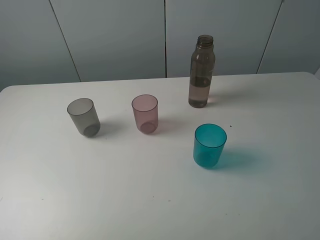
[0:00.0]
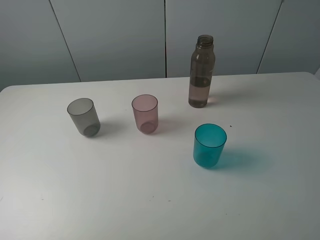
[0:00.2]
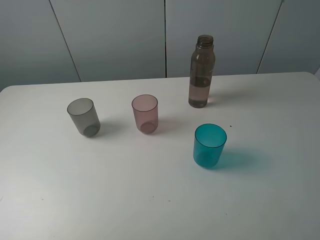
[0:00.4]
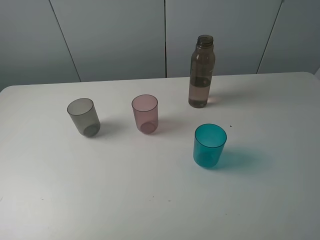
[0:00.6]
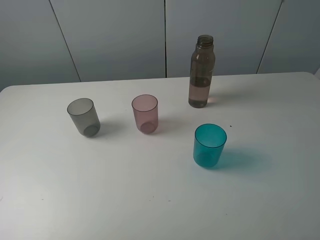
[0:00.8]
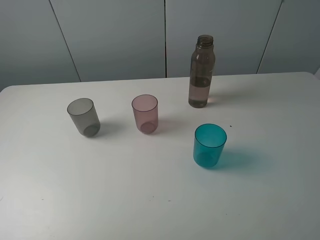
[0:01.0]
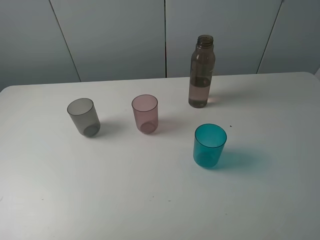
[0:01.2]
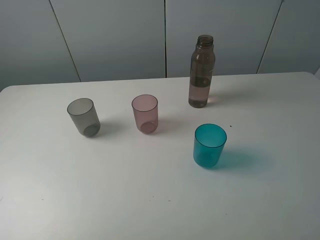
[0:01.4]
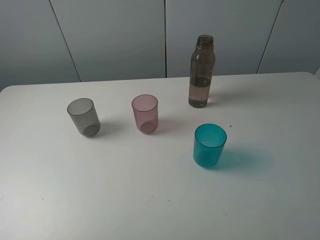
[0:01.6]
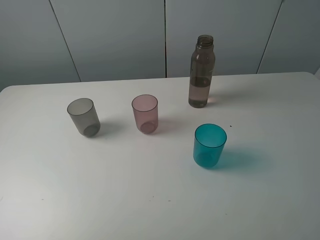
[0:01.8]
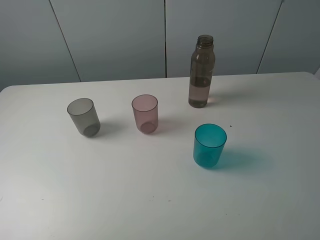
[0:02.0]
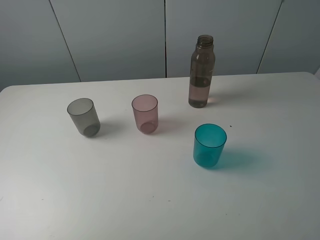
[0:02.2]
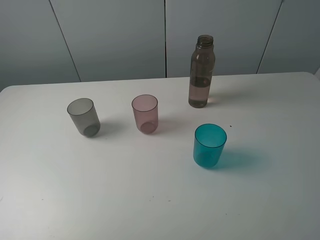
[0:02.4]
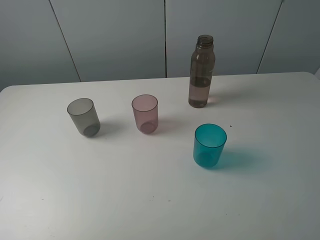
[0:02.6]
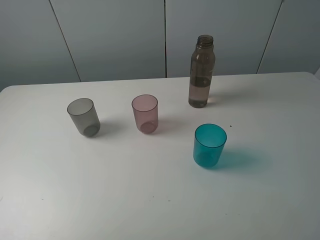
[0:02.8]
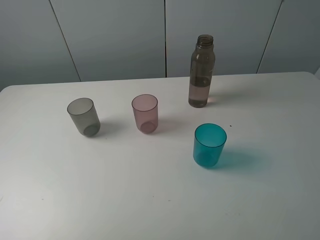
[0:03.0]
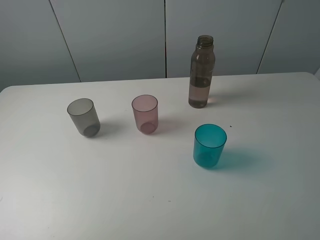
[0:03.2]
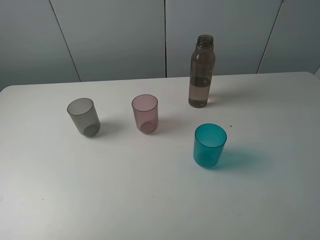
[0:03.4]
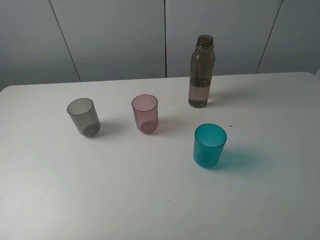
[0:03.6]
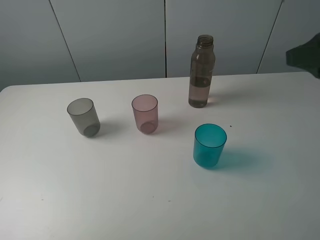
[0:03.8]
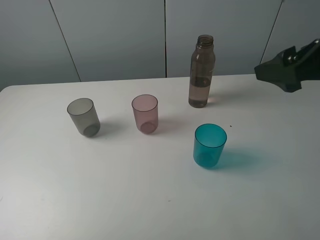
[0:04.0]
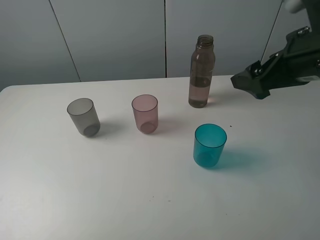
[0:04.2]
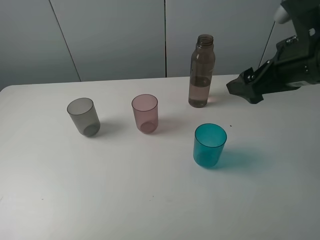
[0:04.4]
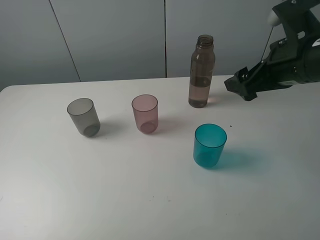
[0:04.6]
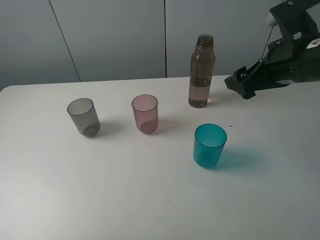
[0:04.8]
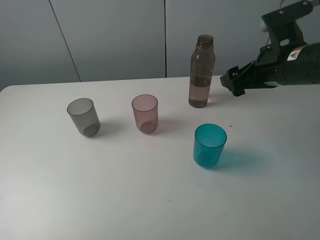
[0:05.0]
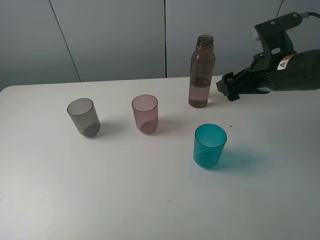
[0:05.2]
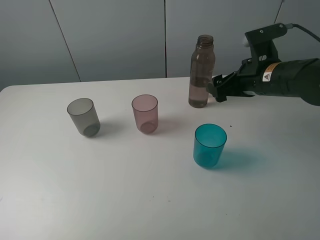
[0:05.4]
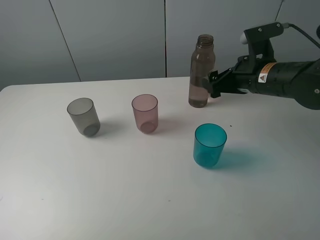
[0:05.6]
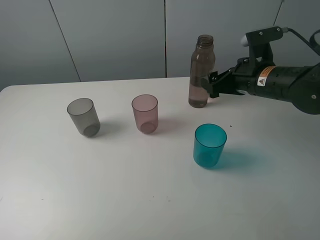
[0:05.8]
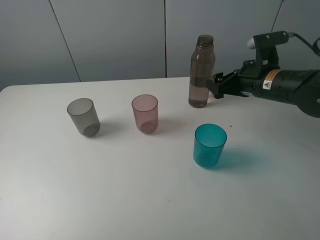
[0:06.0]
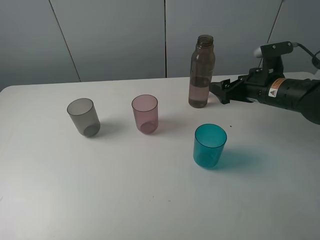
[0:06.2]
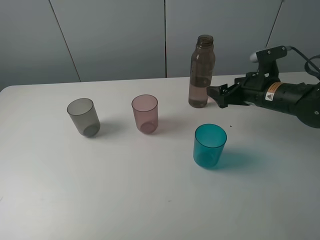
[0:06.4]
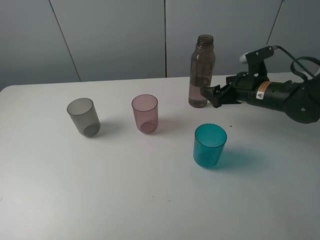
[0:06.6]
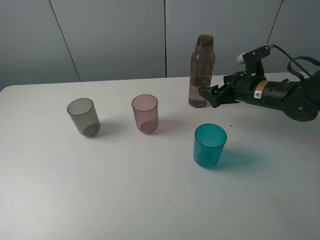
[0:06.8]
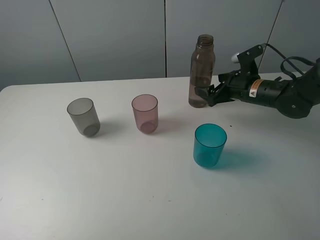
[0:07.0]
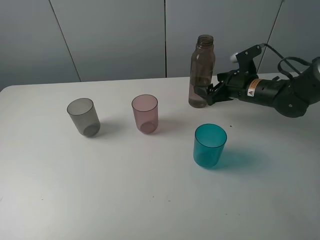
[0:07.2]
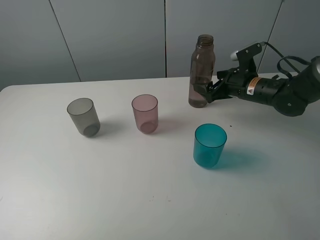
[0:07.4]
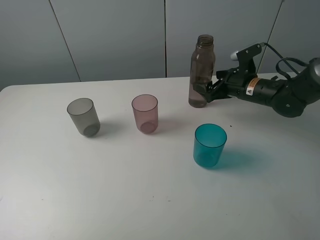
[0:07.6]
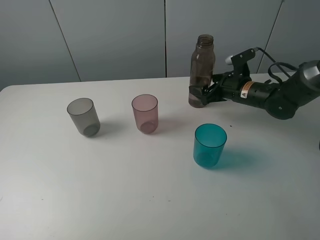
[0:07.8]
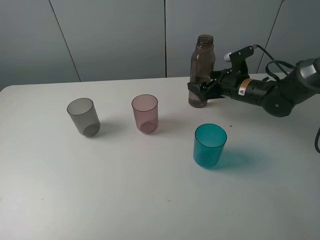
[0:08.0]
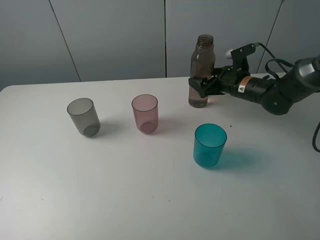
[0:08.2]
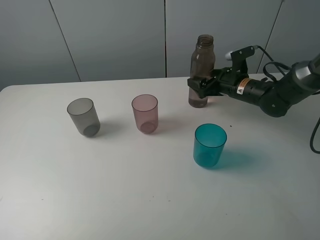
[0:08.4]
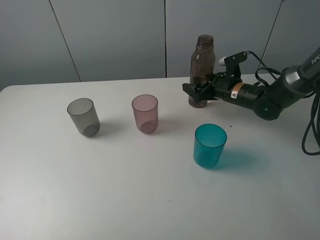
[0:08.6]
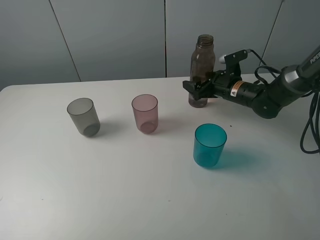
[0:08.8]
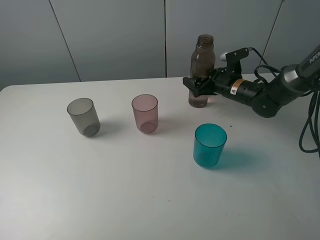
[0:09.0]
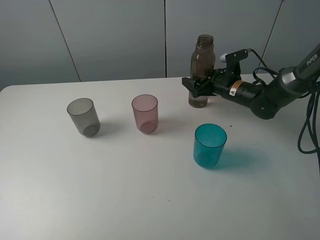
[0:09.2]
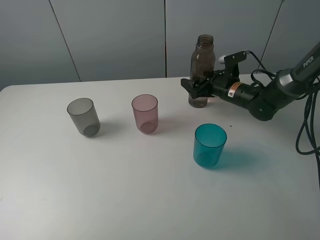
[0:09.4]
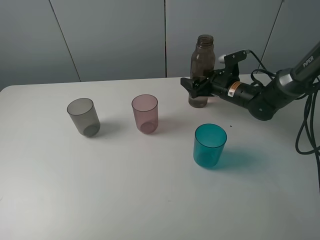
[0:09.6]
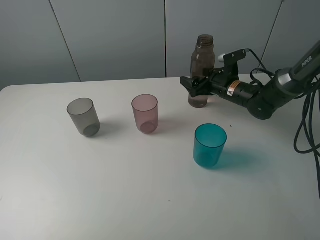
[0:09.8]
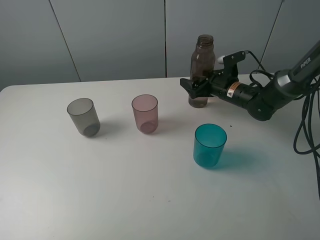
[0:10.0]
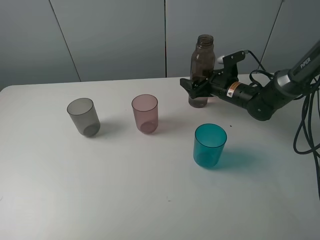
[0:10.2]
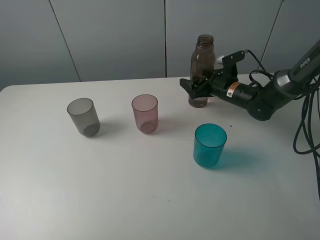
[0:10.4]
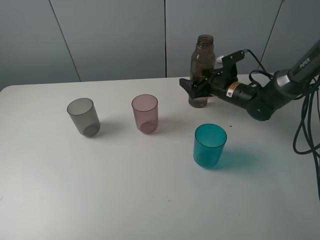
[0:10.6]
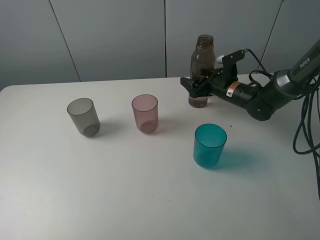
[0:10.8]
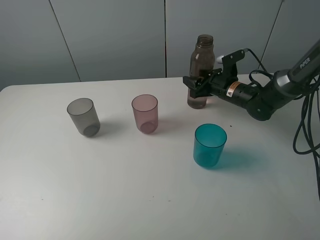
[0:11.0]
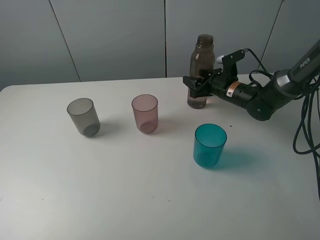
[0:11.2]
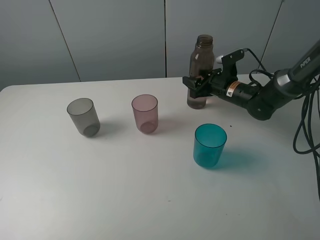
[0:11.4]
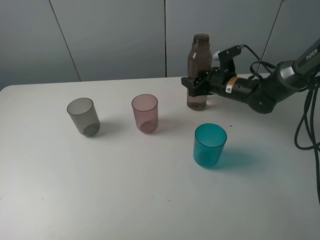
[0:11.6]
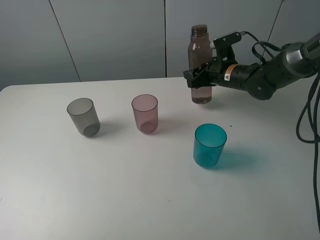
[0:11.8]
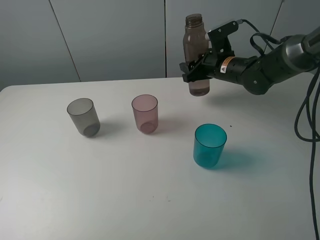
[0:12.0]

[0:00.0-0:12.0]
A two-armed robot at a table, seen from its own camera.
Task of the whole recording: pick up the bottle filled with water and pour water into the middle cup of the three cups.
Step, 0:00.0 to 0:11.2: Grasp the brown bottle with the right gripper.
0:00.0 to 0:01.6: Both grippers stay put.
0:03.0 to 0:04.4: The right gripper moves forward, about 25 cm.
0:04.4 to 0:06.0: The right gripper travels downward and forward by some 15 cm.
0:06.0 to 0:07.6: The right gripper travels forward and downward by roughly 10 cm.
0:07.6 to 0:09.0: There are only small adjustments of the grippers.
0:09.0 to 0:10.4: Both grippers stay about where they are.
0:10.4 to 0:12.0: The right gripper heads upward, covering roughly 5 cm, and closes its fingers.

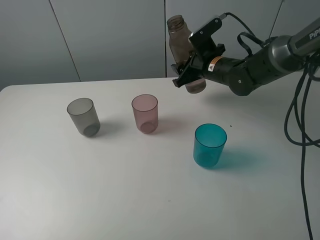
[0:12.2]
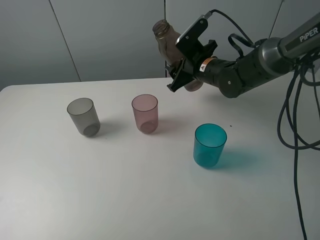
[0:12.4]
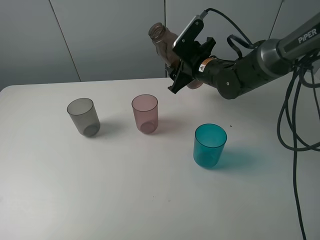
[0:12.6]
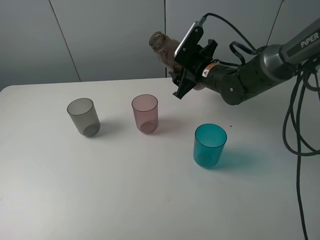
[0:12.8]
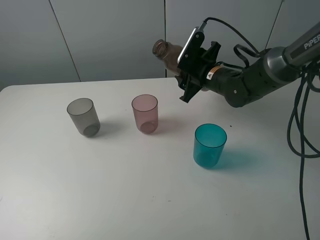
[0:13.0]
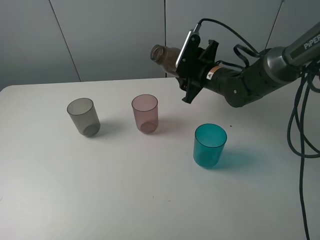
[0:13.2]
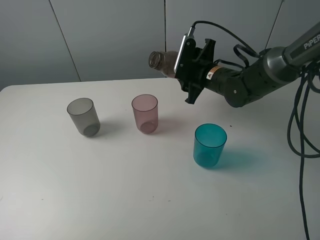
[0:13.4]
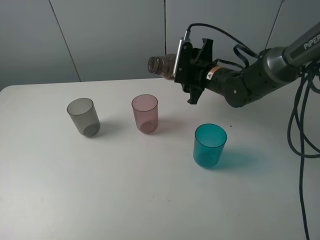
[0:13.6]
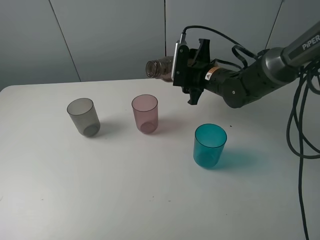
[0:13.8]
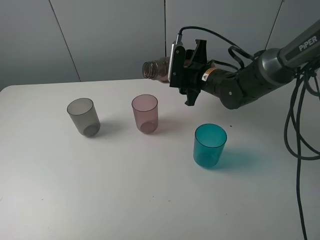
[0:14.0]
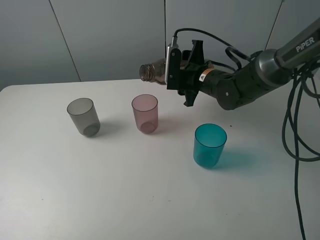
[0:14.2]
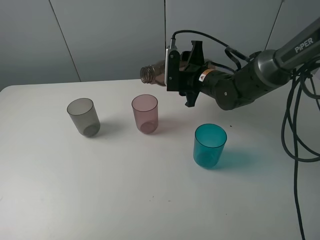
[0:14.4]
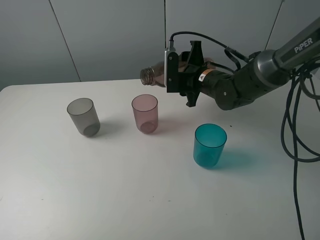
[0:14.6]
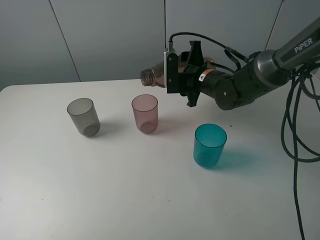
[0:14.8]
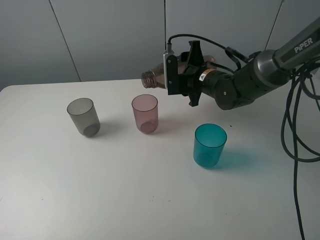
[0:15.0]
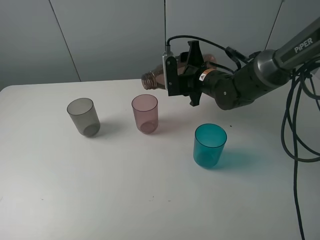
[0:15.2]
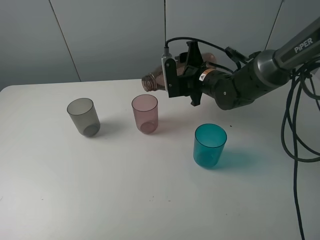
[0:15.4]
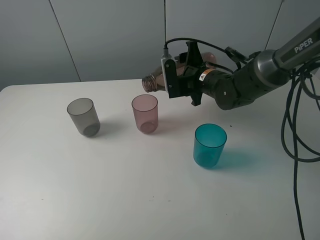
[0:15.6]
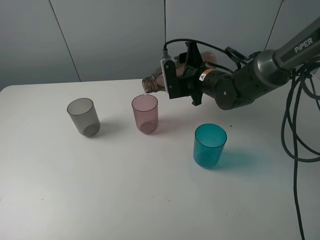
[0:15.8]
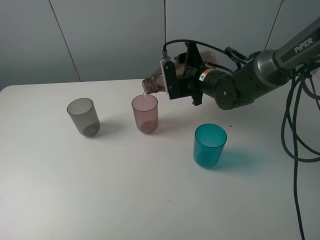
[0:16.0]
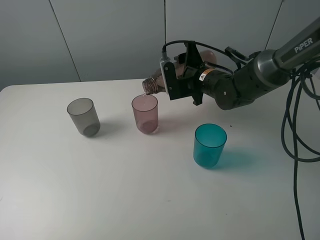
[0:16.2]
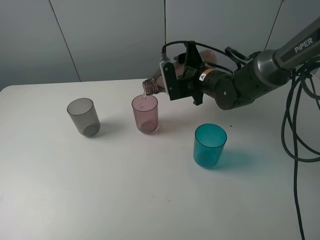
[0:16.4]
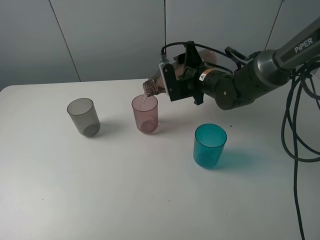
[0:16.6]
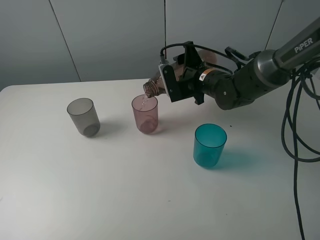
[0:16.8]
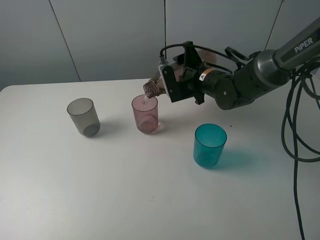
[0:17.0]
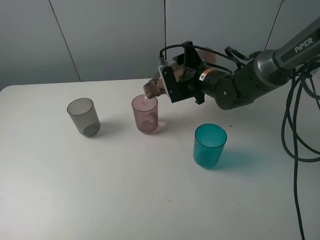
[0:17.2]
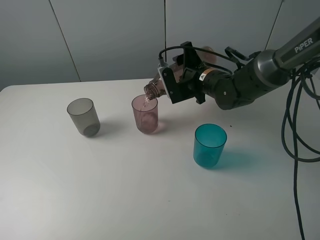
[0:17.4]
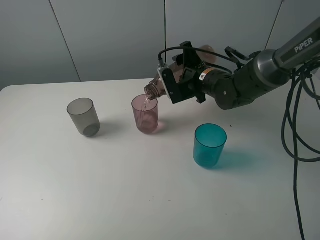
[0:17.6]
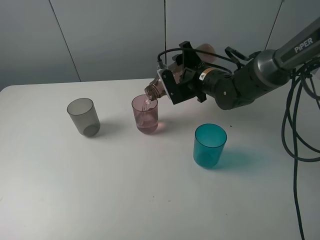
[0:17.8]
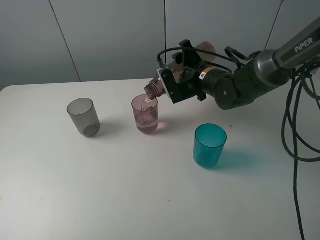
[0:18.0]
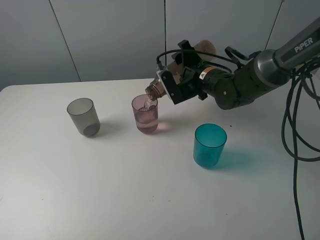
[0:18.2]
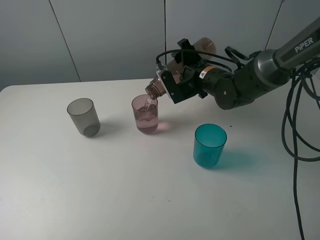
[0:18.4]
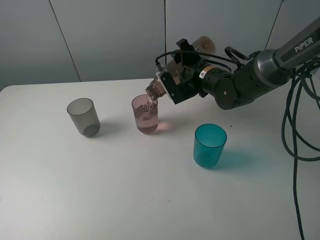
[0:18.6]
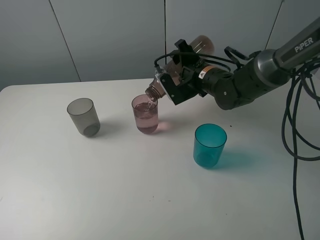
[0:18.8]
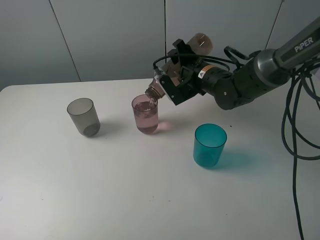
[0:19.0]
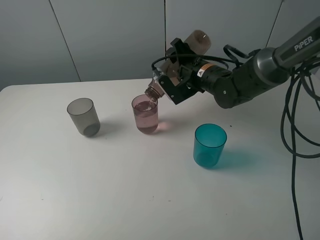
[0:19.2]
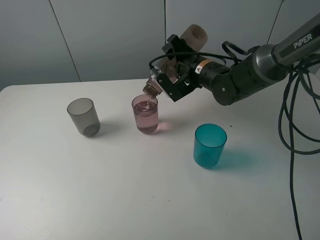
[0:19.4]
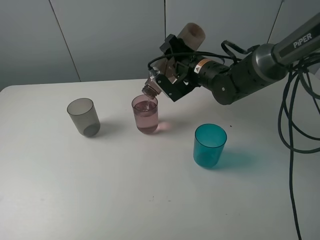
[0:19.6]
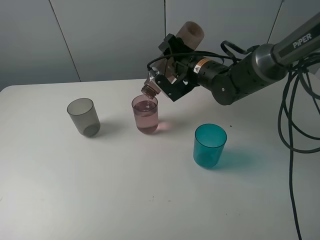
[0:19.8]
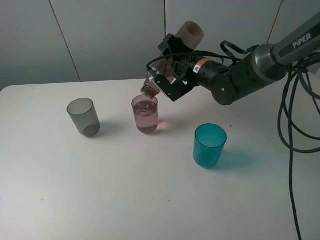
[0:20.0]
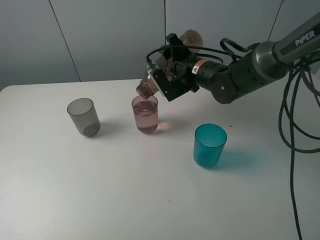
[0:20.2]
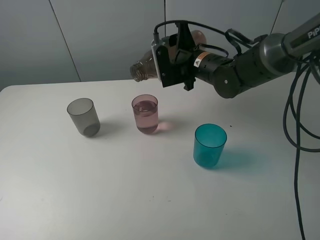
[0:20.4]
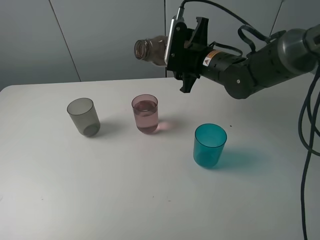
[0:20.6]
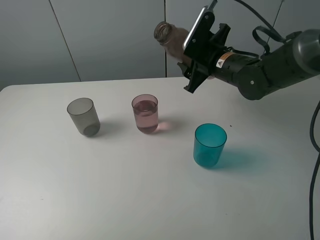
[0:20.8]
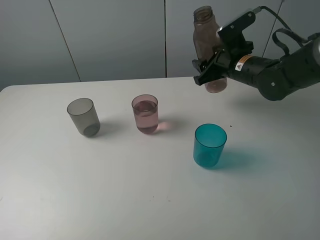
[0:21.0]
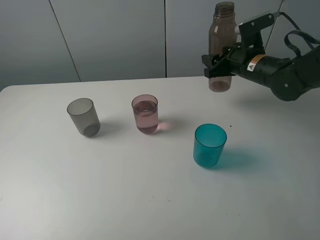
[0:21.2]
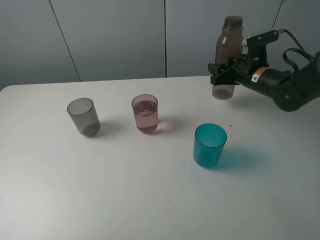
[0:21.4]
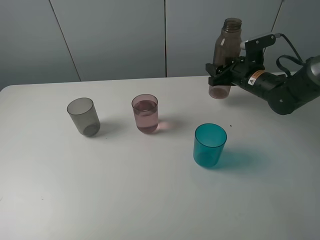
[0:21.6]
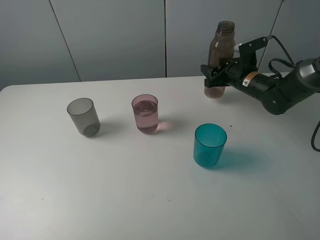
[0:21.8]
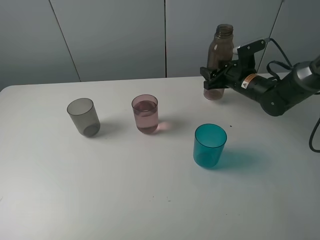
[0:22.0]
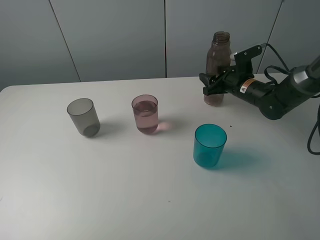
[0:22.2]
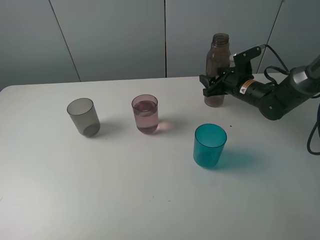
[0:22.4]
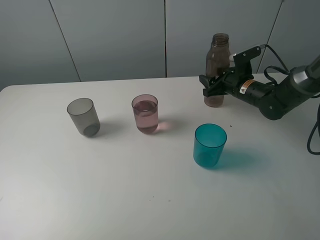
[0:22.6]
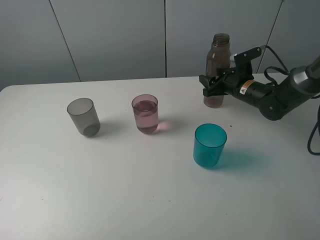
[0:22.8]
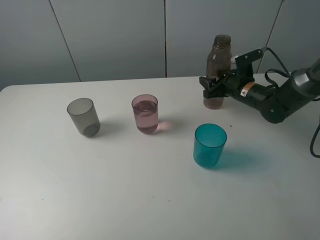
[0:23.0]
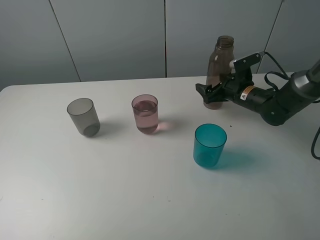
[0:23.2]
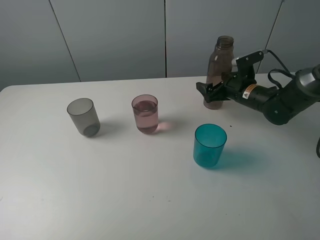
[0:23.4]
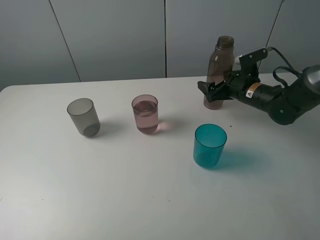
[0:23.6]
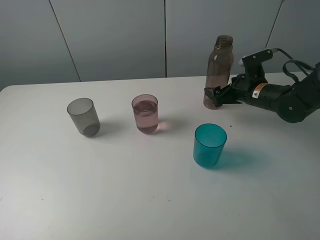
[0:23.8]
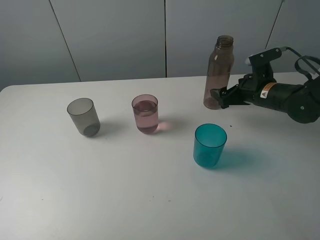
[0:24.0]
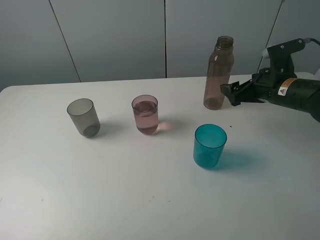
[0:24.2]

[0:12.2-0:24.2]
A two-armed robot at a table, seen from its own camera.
Task of the whole recording: pick up the bottle filled with water and pour water into the middle cup of the three cups.
Step, 0:12.2 to 0:16.0: Pour water from transparent bottle to red cup with the right gripper.
0:13.8 to 0:15.2: The grippers make only small movements.
0:15.2 to 0:16.6: The grippers stay close to where they were, moving slightly.
0:16.6 to 0:18.2: The grippers move only a little.
0:18.2 to 0:19.8: There are only small adjustments of the grippers.
0:19.8 to 0:21.2: The right gripper is displaced to the right by approximately 10 cm.
0:21.2 to 0:22.6: The right gripper shifts about 10 cm downward.
0:22.6 to 0:24.2: The right gripper shifts some 15 cm backward and upward, and opens up.
